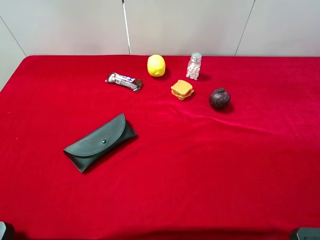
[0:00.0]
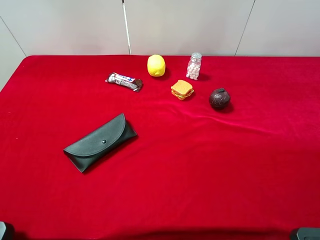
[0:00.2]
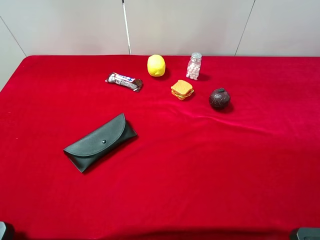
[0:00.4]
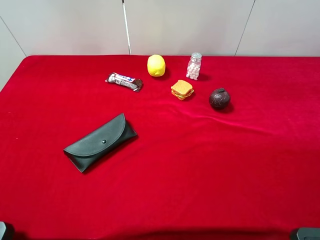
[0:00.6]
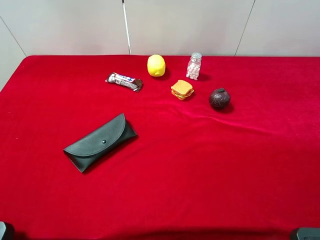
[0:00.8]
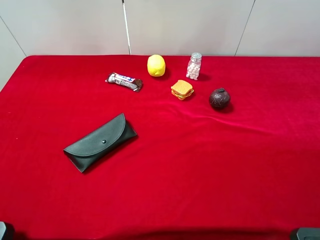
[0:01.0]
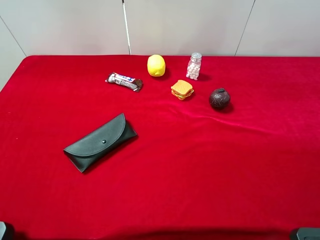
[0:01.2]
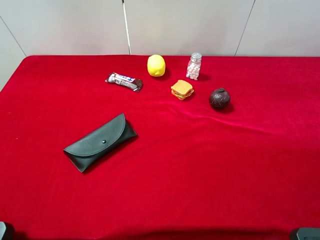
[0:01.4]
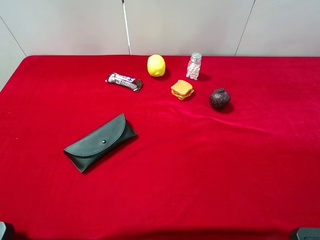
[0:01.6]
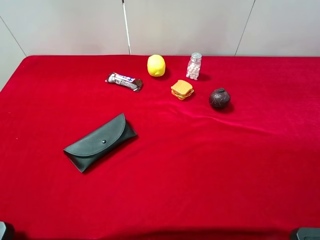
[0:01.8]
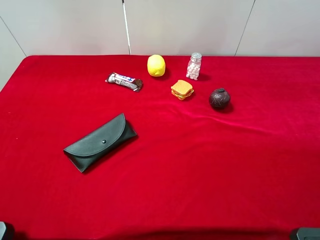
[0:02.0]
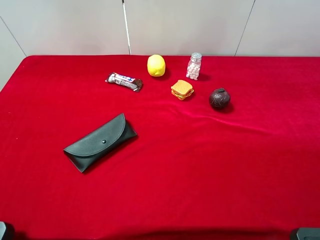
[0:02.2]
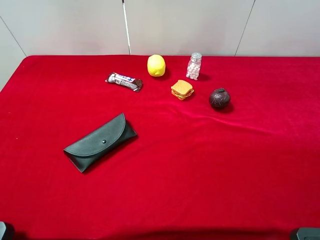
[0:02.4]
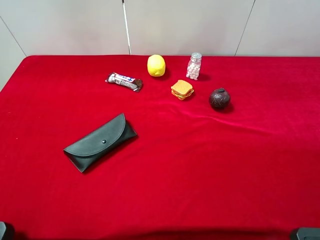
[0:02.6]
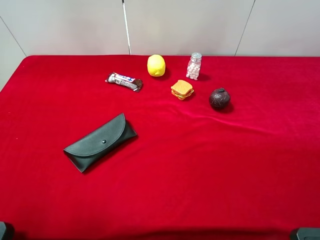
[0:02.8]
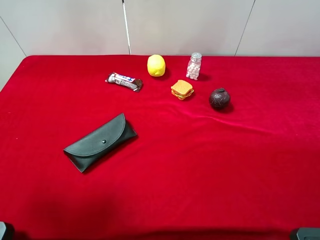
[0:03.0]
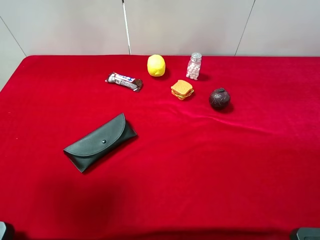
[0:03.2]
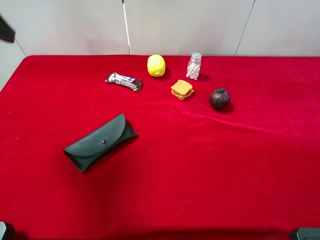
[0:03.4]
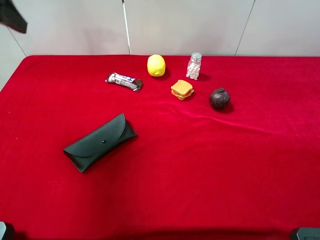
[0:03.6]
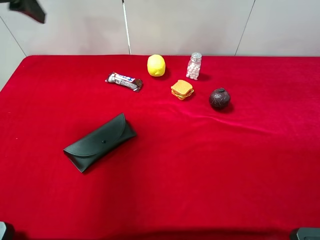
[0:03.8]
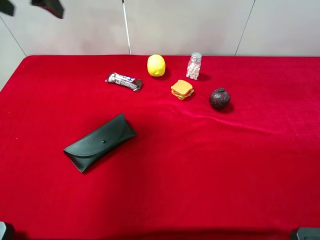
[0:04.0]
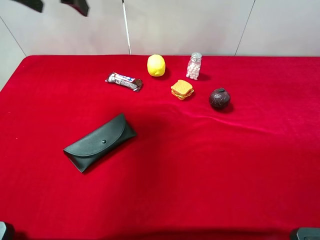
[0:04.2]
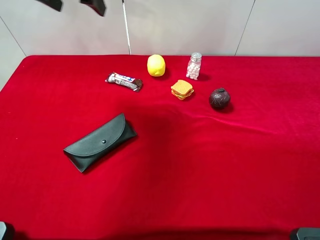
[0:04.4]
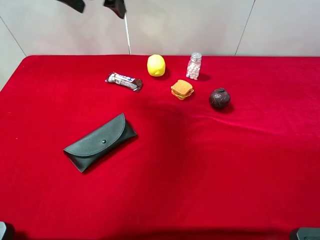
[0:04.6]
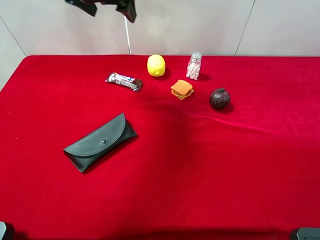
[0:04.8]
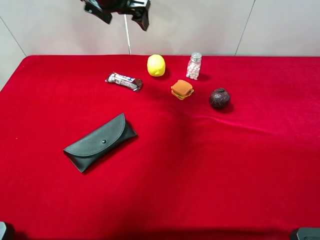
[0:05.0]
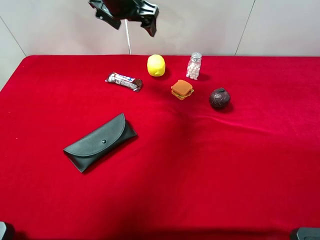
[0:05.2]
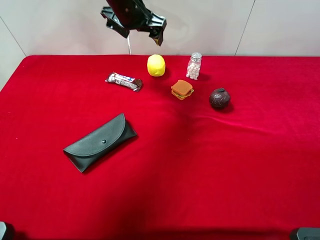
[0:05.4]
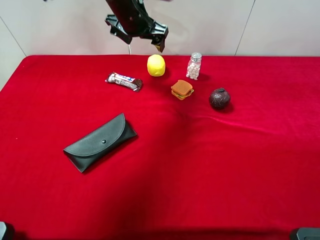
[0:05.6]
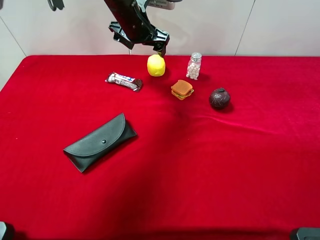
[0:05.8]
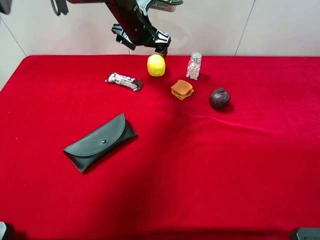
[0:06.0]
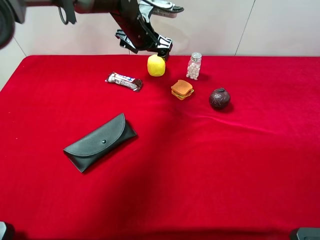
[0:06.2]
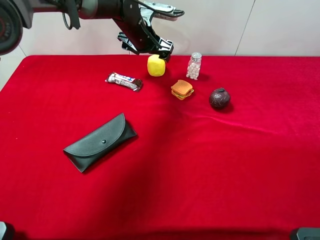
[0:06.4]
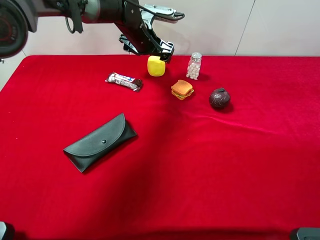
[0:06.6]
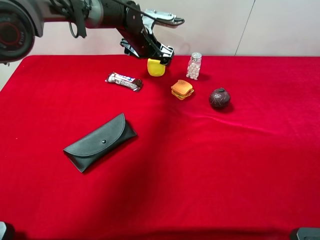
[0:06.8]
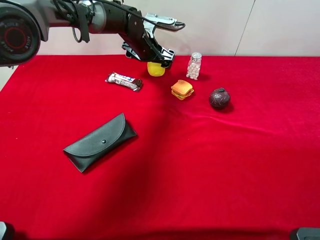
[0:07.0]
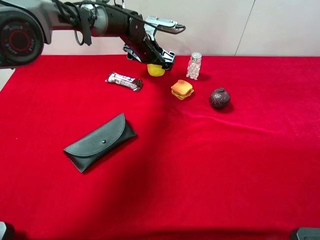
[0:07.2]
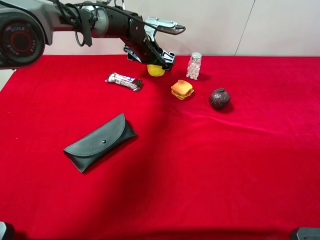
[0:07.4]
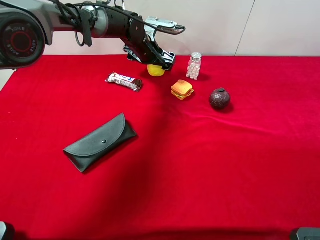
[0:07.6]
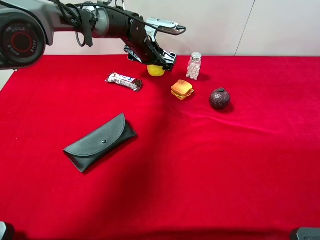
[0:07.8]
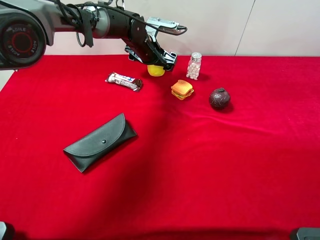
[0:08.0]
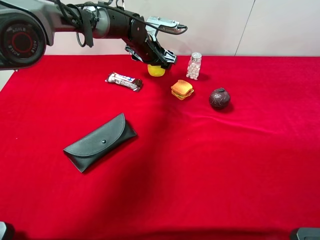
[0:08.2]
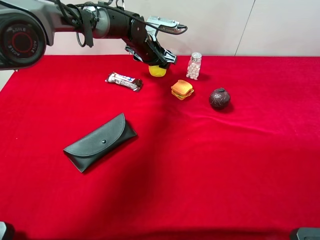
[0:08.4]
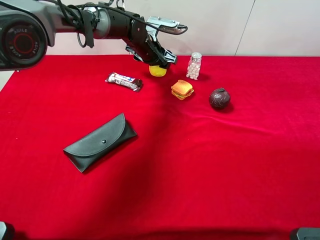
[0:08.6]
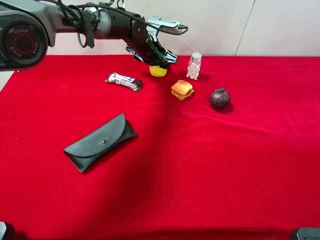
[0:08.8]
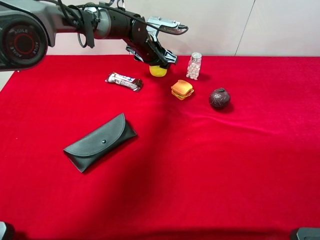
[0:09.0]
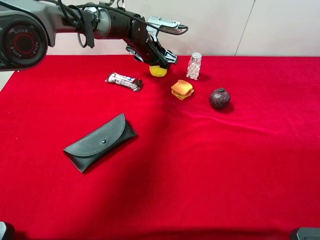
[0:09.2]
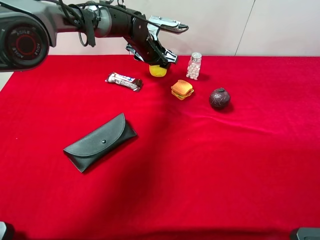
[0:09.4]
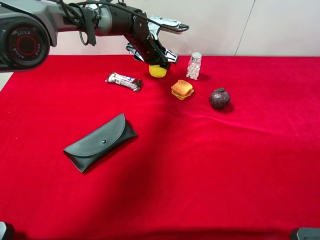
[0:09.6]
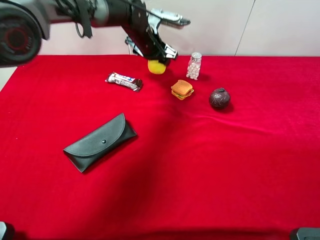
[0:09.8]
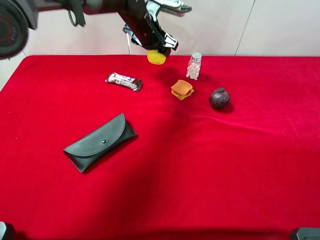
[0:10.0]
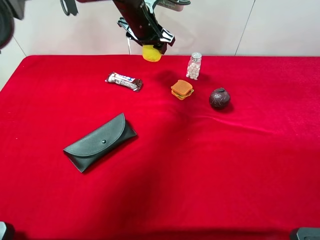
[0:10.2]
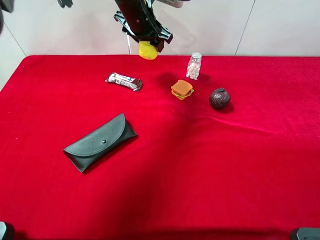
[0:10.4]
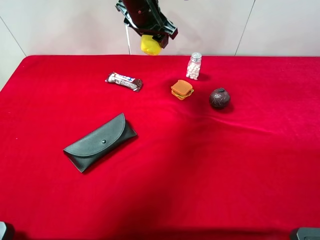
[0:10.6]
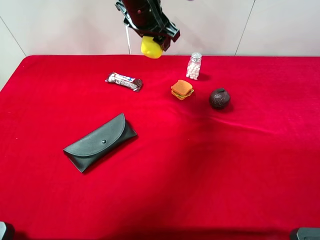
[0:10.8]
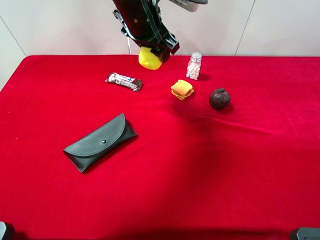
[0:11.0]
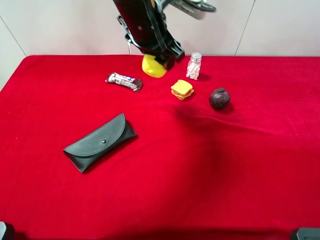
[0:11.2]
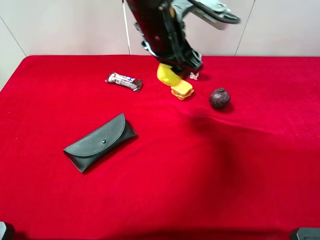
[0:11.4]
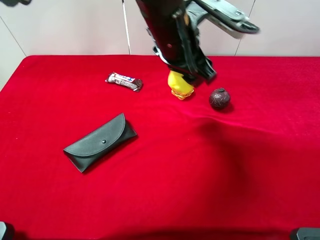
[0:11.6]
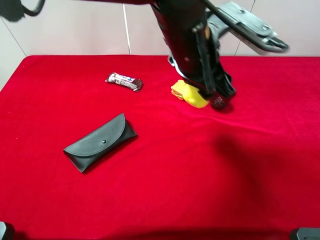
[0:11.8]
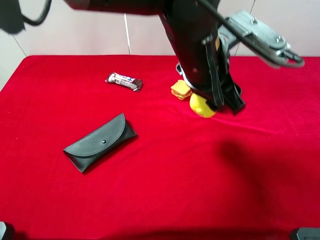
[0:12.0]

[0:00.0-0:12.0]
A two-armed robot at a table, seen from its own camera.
Task of the whole recording: the gripper move the object.
Step, 0:00.0 to 0:08.6: Grasp the lemon with the left gripper.
0:00.0 to 0:01.6: Both grippers stay put.
0:01.6 to 0:03.0: The left gripper travels forward and upward by some 15 cm.
0:03.0 to 0:04.4: The left gripper travels forward and to the right by roughly 25 cm.
0:04.4 to 0:06.0: The left gripper is displaced downward, to the right and forward by roughly 20 cm.
0:06.0 to 0:07.6: The left gripper travels downward by roughly 5 cm.
0:07.6 to 0:09.0: The left gripper closes up.
0:09.0 to 0:10.4: The left gripper shifts roughly 10 cm upward.
0:10.4 to 0:12.0: The left gripper travels backward and to the right by about 25 cm.

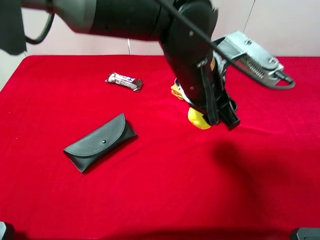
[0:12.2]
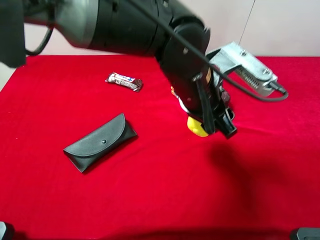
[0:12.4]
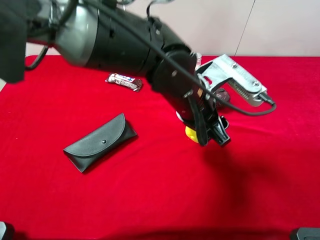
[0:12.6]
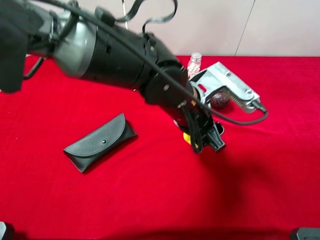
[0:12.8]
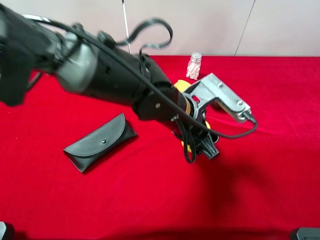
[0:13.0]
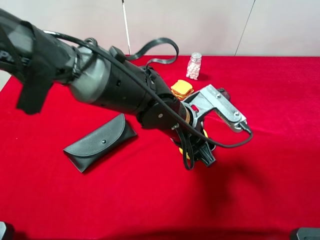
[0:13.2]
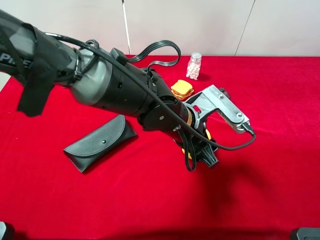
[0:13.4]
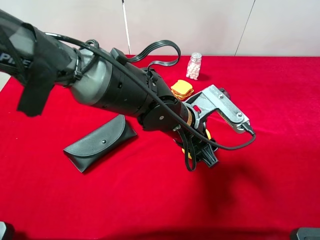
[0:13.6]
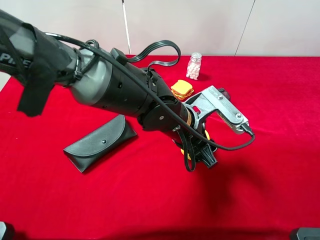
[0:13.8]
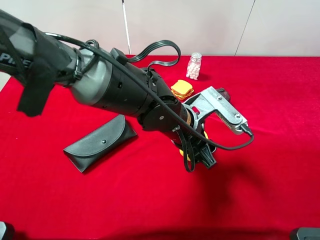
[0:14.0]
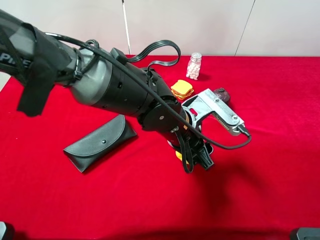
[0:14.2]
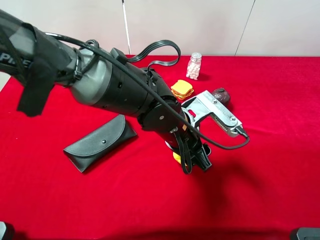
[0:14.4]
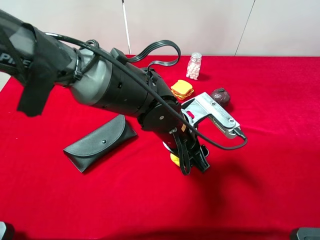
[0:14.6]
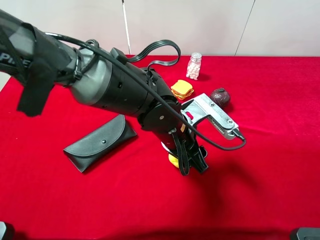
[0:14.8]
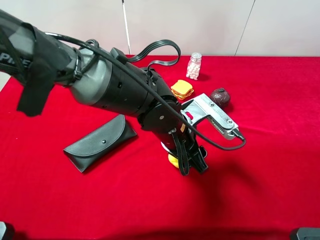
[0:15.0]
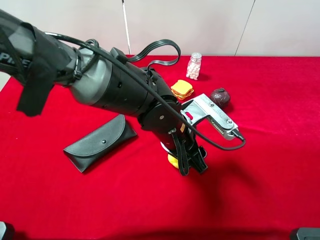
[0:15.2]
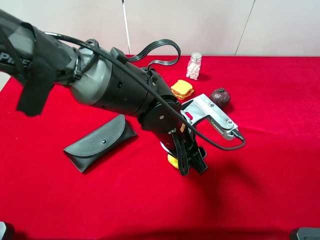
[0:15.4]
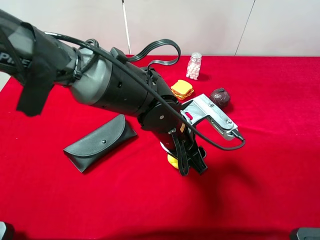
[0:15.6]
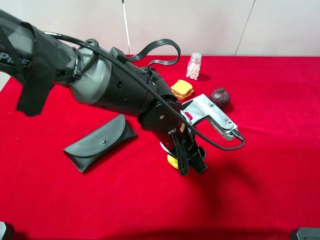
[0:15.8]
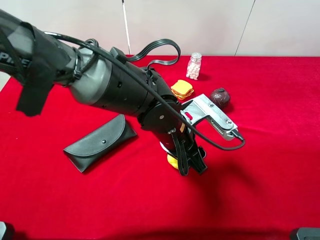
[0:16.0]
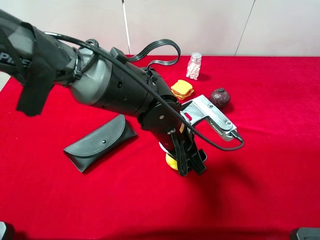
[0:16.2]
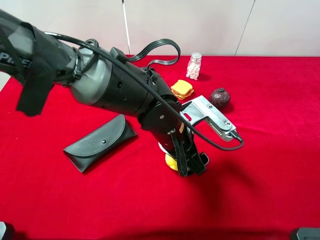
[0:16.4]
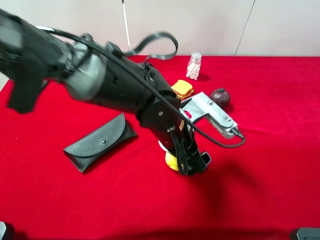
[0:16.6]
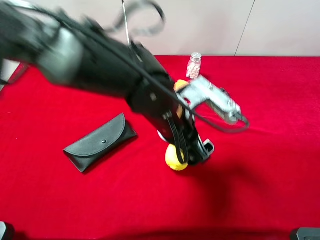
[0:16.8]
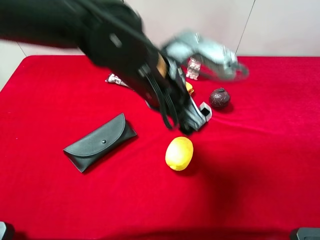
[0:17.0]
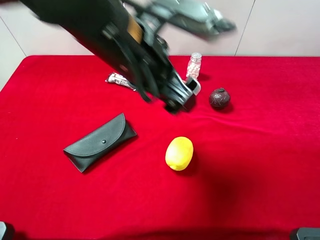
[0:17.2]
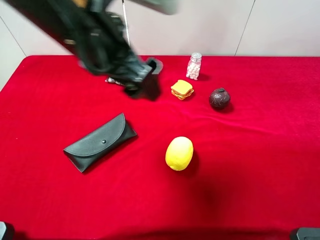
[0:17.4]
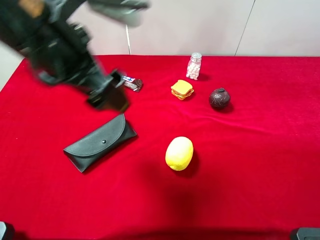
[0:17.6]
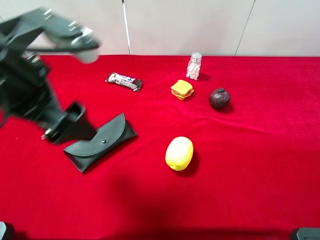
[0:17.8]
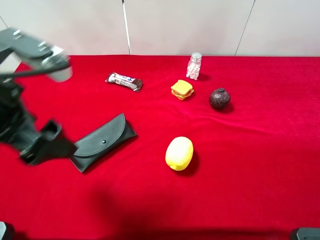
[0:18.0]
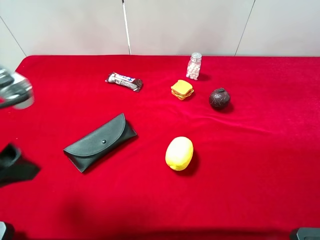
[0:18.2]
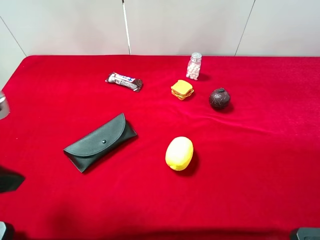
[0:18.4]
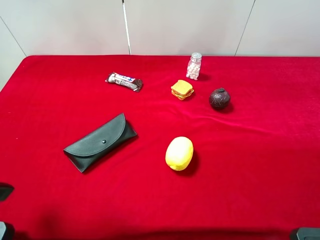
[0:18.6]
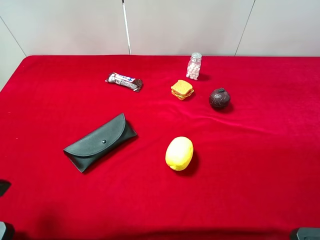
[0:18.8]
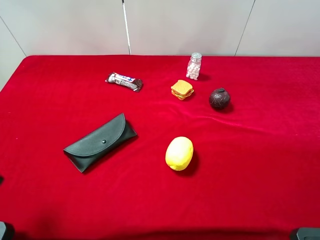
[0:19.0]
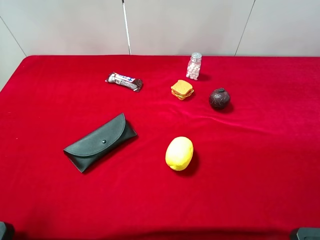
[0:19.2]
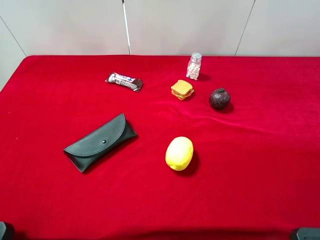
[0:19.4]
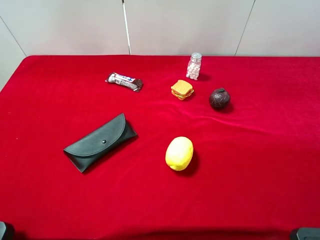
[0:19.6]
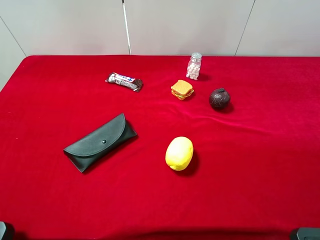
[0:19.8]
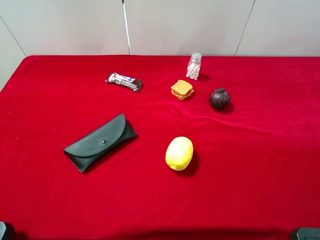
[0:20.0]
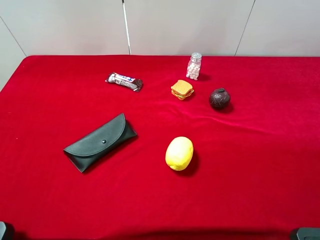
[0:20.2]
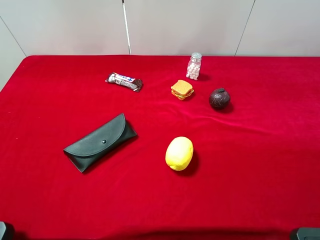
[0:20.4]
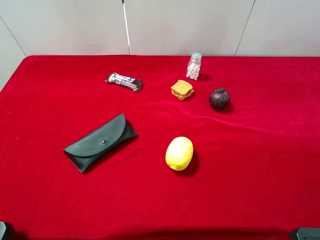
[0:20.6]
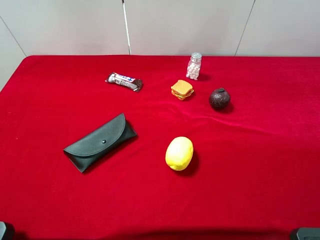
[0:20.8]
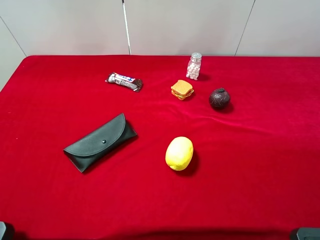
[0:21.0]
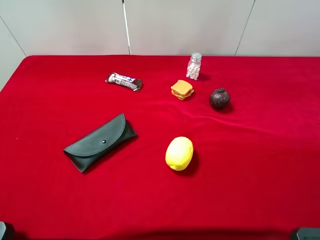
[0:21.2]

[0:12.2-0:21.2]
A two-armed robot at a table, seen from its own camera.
Task of the whole recording: the gripper move the object.
Step, 0:12.2 to 0:17.0: Place the lemon on the table with the left gripper.
0:12.2 to 0:13.8: The left gripper shifts roughly 10 cm downward.
0:13.8 to 0:15.2: The grippers make only small movements.
0:15.2 to 0:16.6: The left gripper opens up.
0:16.6 to 0:18.2: The left gripper heads to the left and upward, covering about 30 cm.
0:18.2 to 0:19.8: The left gripper shifts some 15 cm backward and to the left.
0:19.8 to 0:21.2: Both grippers stay put.

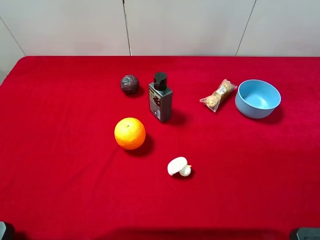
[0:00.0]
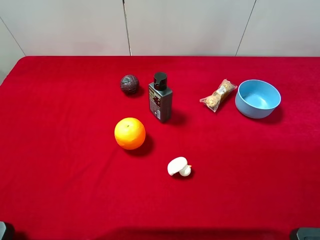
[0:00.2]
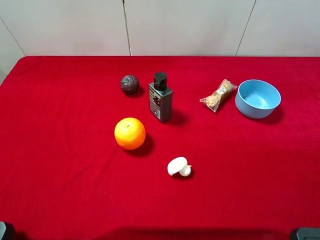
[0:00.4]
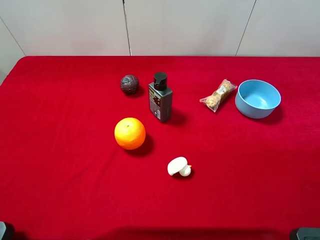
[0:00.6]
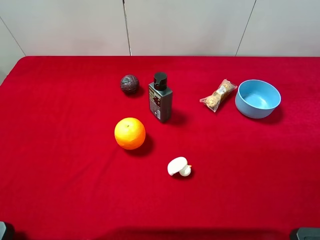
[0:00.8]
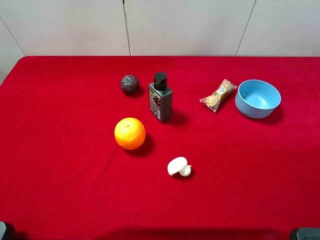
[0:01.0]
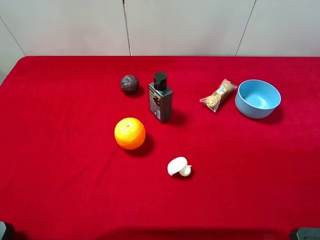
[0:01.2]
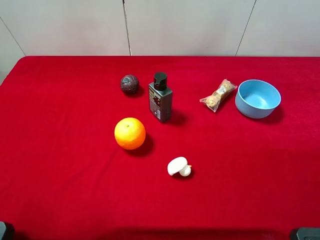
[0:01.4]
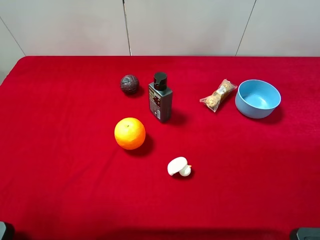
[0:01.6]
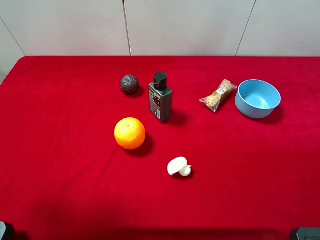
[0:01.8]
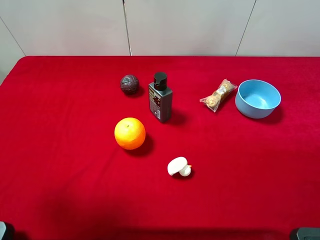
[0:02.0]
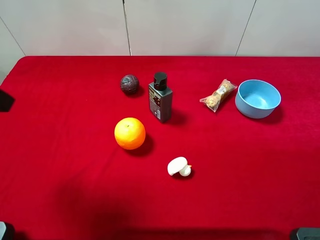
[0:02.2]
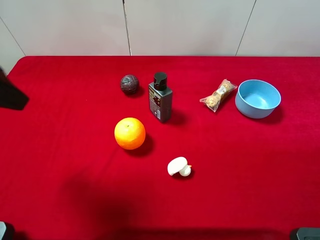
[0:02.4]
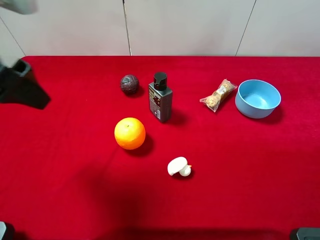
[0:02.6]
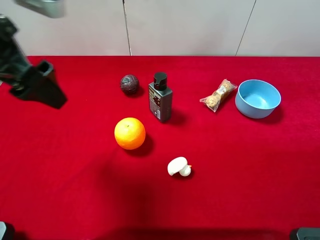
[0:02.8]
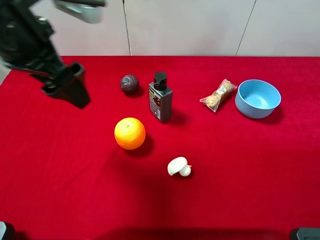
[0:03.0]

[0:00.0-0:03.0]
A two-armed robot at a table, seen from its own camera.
Task of the whole recording: the gripper move the object.
0:01.6 to 0:03.0: The left gripper travels to the right and forward by about 20 cm.
